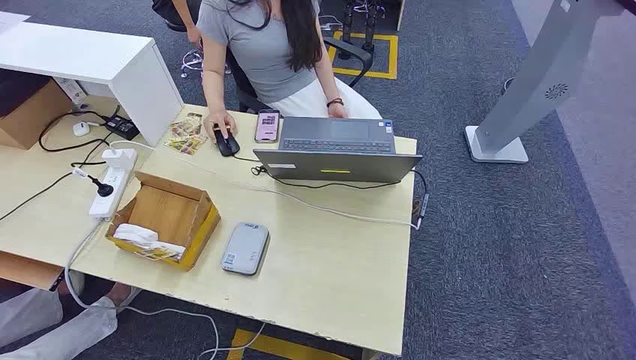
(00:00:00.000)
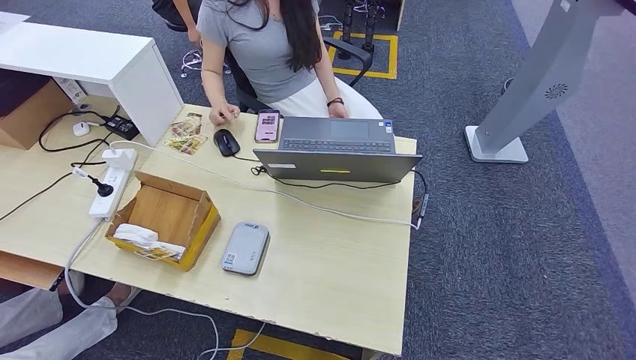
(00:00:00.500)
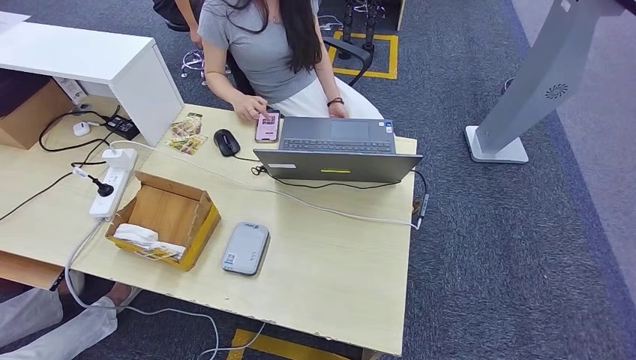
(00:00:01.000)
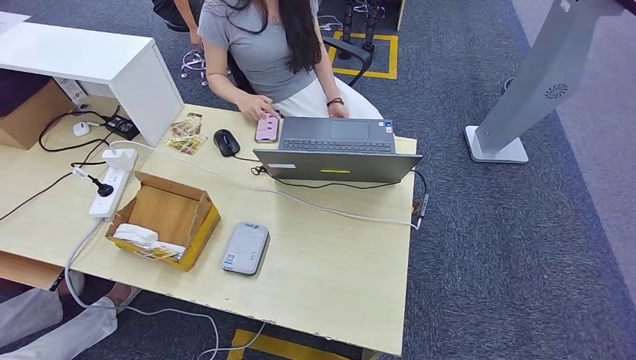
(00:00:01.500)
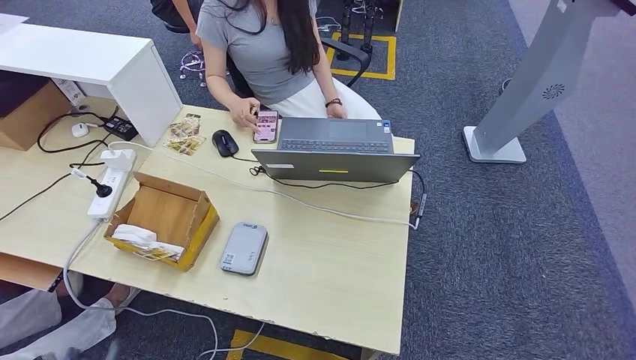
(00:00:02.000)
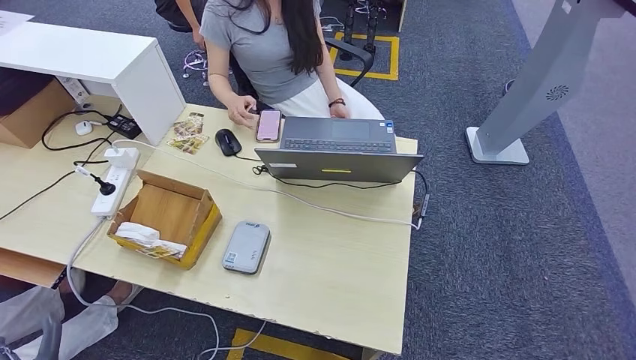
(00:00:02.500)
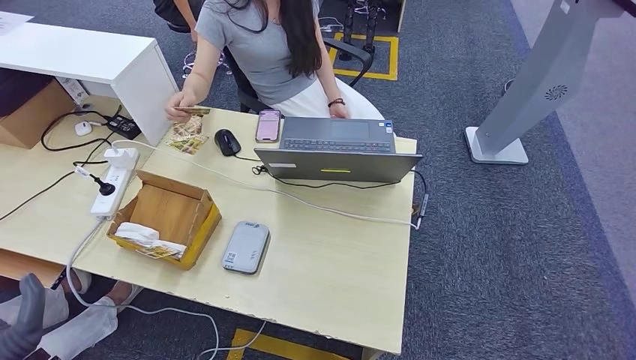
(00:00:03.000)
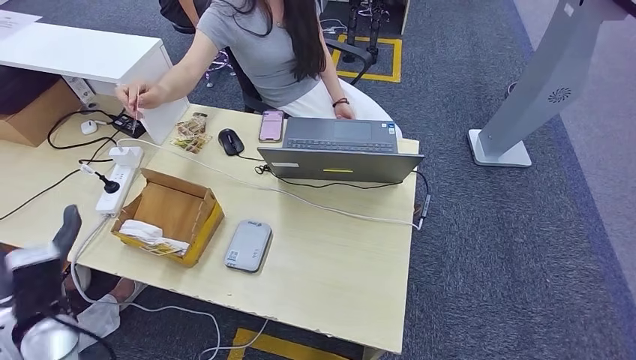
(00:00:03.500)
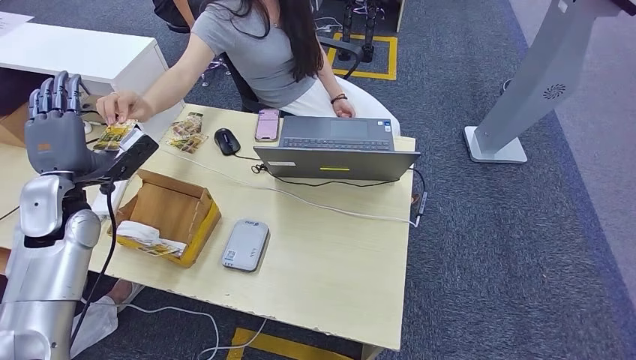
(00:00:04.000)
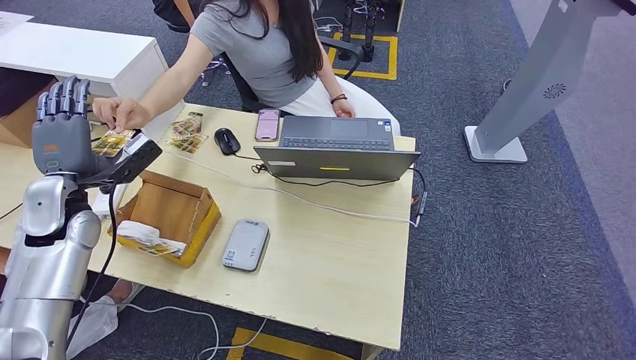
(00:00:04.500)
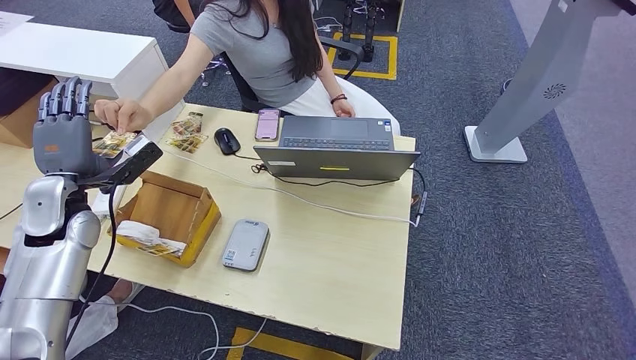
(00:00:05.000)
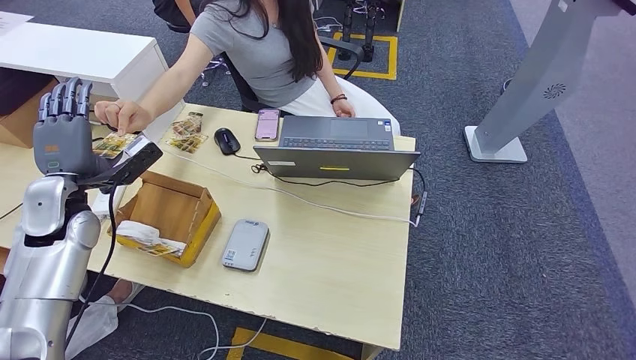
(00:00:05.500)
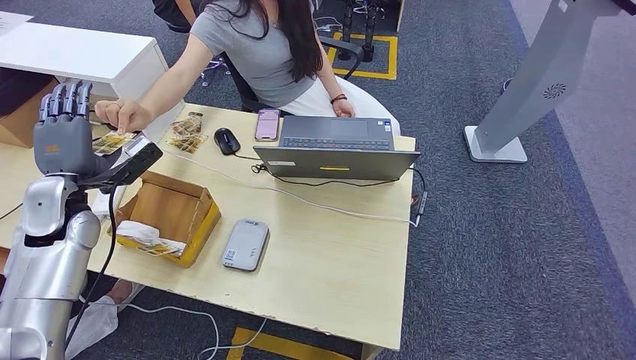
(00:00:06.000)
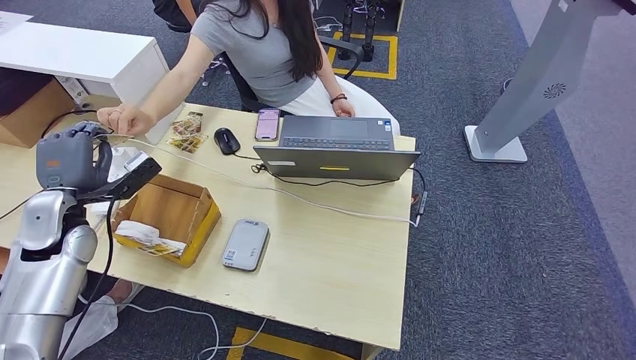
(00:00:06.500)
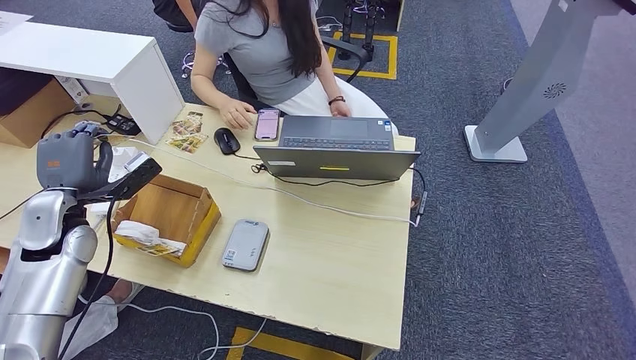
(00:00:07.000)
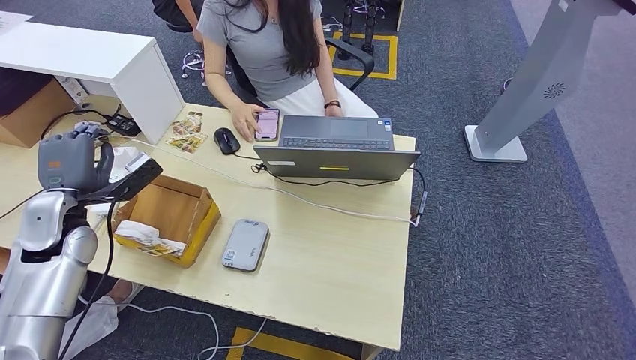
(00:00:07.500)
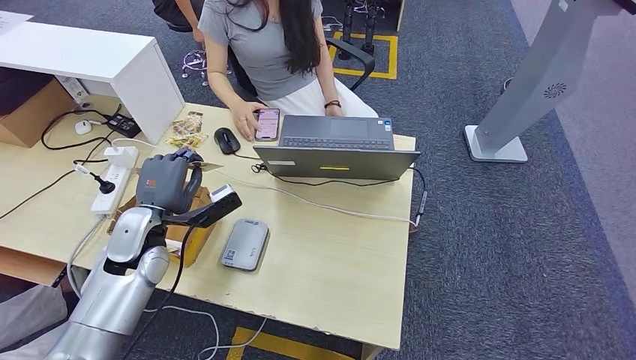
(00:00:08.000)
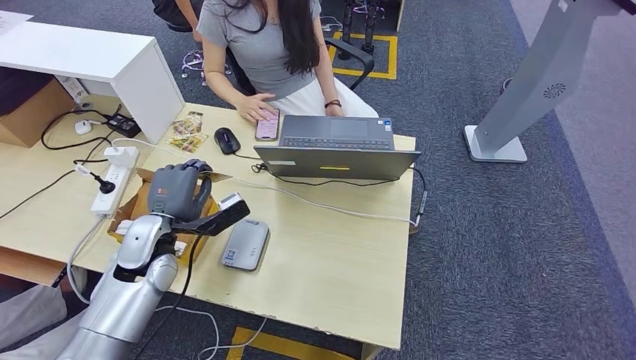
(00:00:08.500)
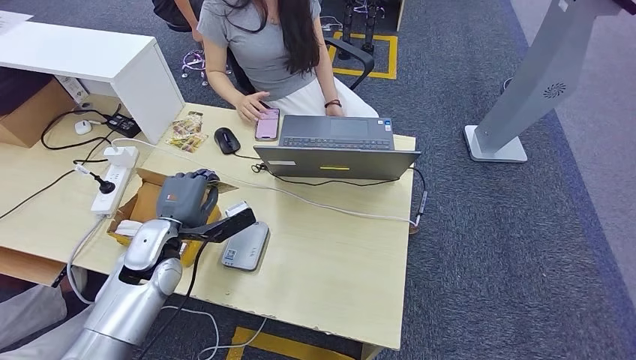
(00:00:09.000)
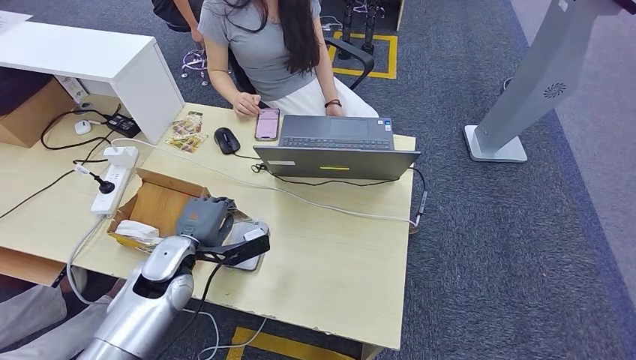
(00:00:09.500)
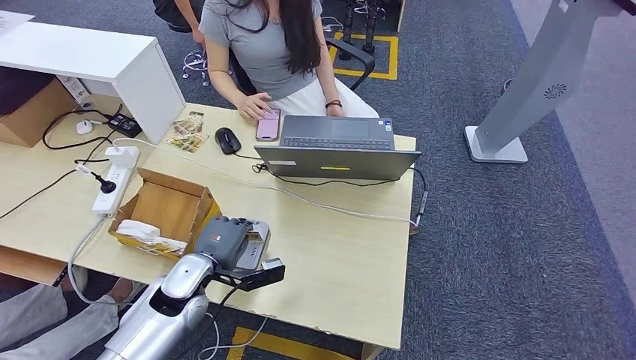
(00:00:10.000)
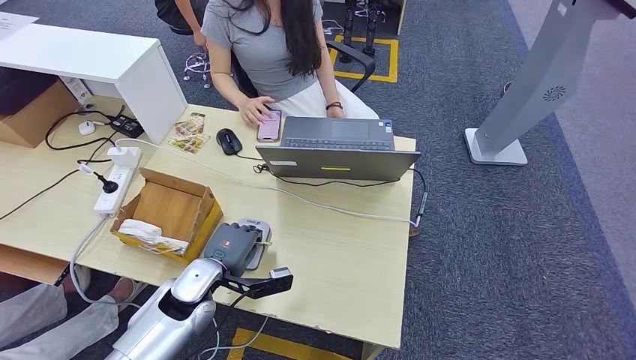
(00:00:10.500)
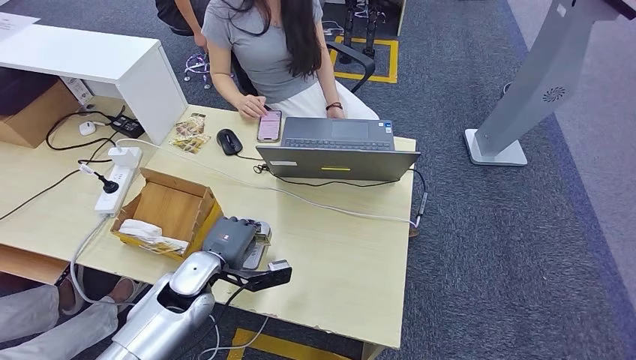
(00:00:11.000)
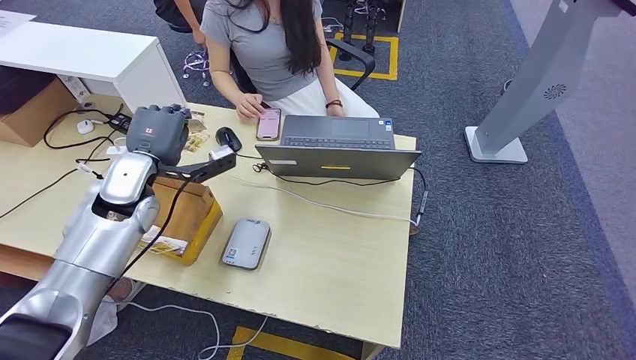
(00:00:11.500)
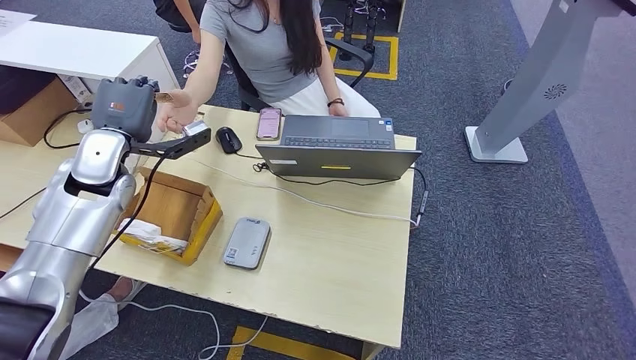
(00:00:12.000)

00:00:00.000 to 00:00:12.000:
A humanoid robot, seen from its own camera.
Step, 00:00:00.000 to 00:00:07.000: Take the ID card from the person's hand.
Step, 00:00:07.500 to 00:00:11.000: Place the ID card on the card reader.
00:00:02.000 to 00:00:04.000: The left hand is displaced forward and upward by roughly 50 cm.
00:00:04.000 to 00:00:06.000: The two hands keep their place.
00:00:08.000 to 00:00:10.000: The left hand travels downward and to the right by roughly 10 cm.
00:00:10.000 to 00:00:12.000: The left hand goes roughly 25 cm upward, forward and to the left.

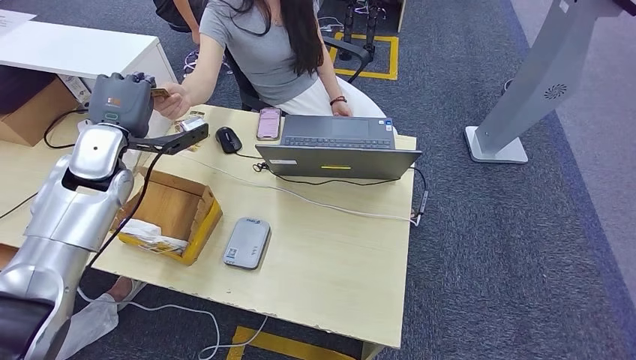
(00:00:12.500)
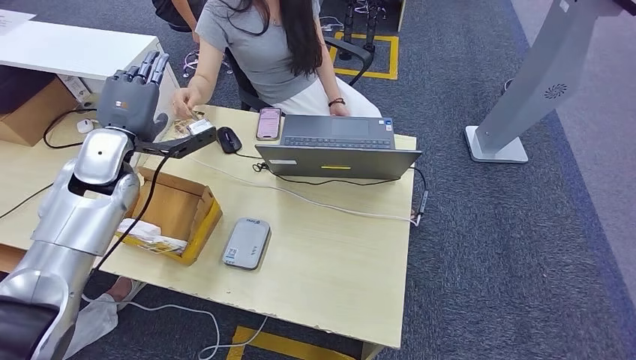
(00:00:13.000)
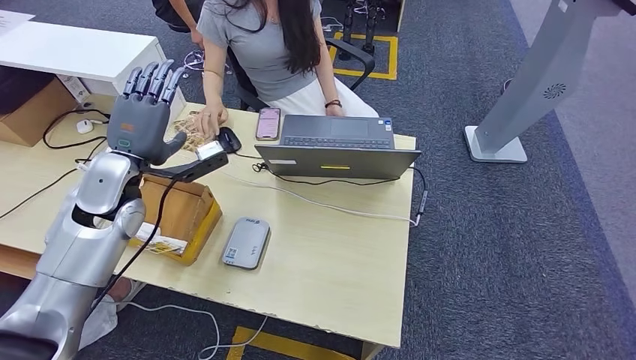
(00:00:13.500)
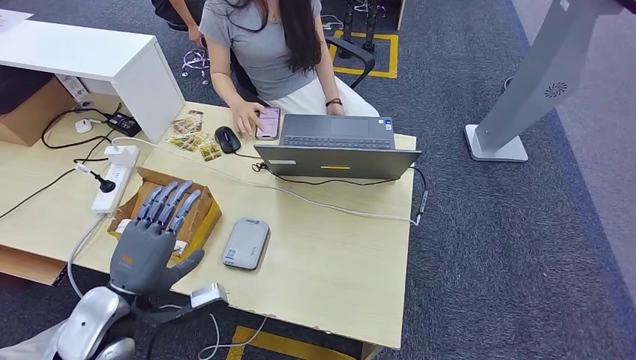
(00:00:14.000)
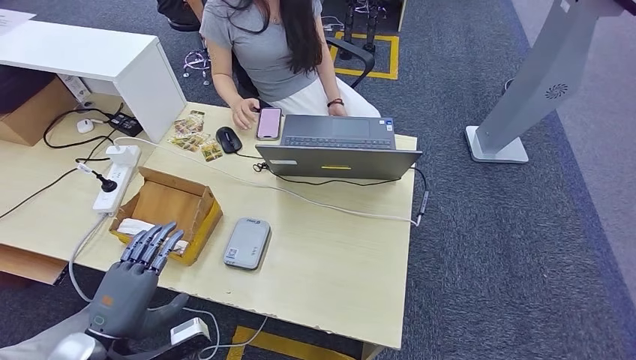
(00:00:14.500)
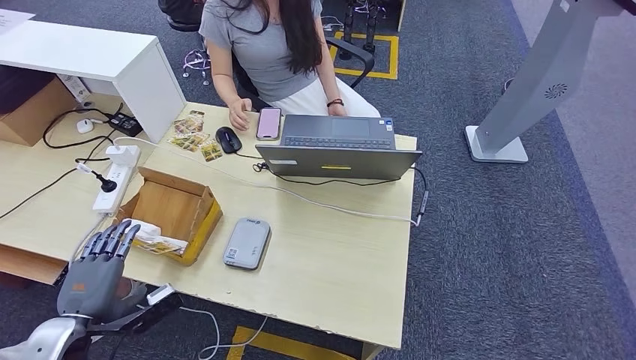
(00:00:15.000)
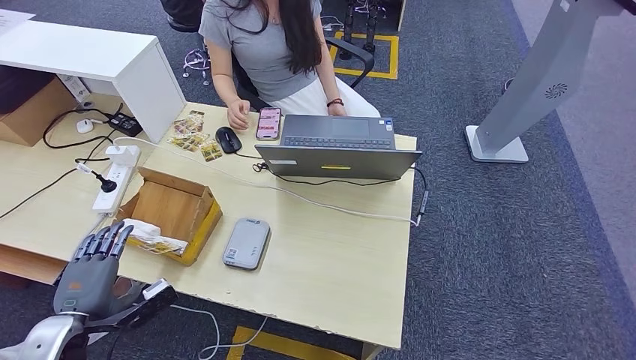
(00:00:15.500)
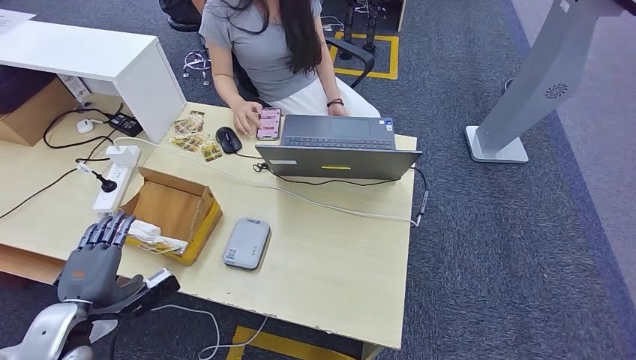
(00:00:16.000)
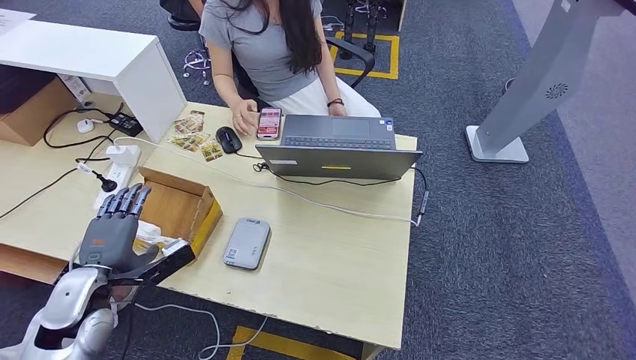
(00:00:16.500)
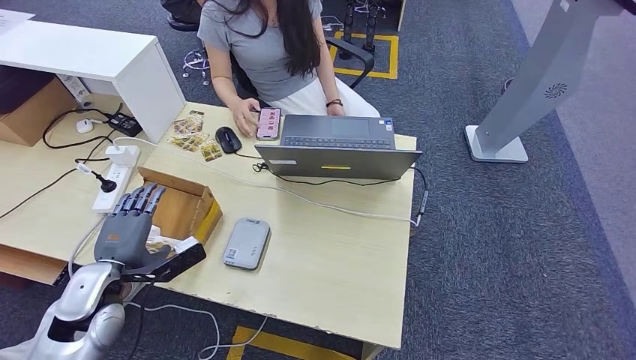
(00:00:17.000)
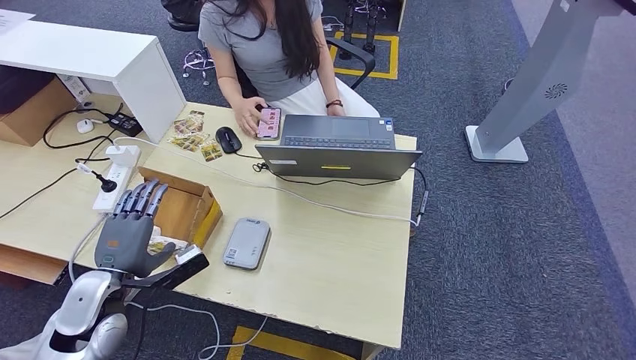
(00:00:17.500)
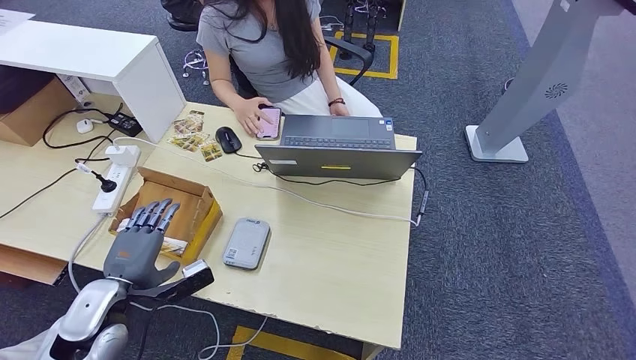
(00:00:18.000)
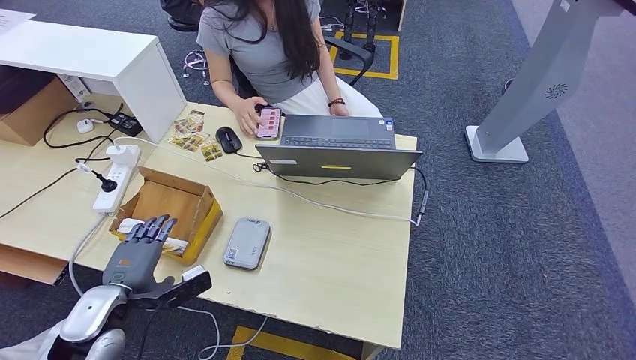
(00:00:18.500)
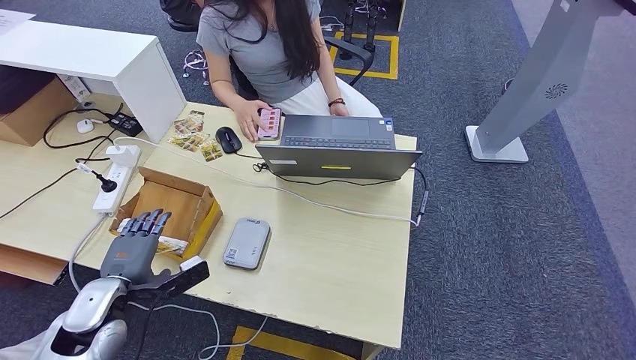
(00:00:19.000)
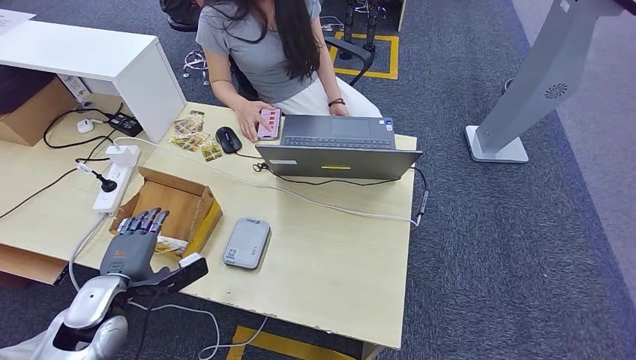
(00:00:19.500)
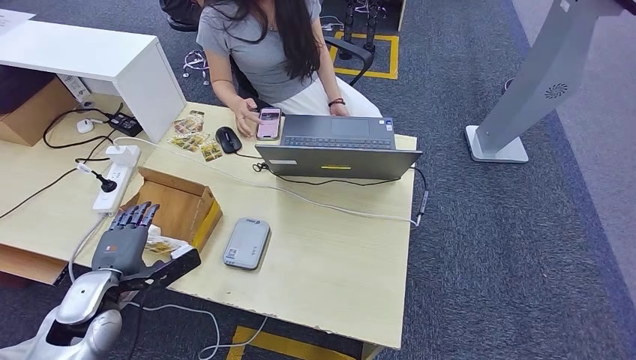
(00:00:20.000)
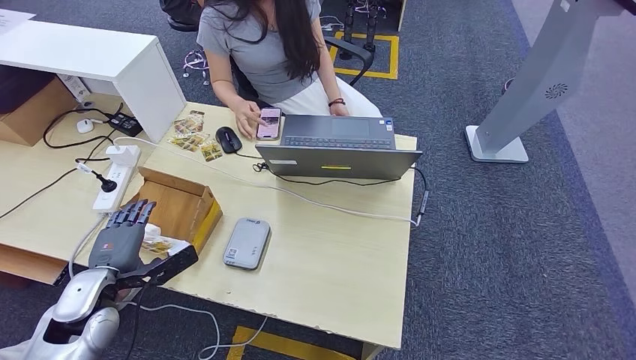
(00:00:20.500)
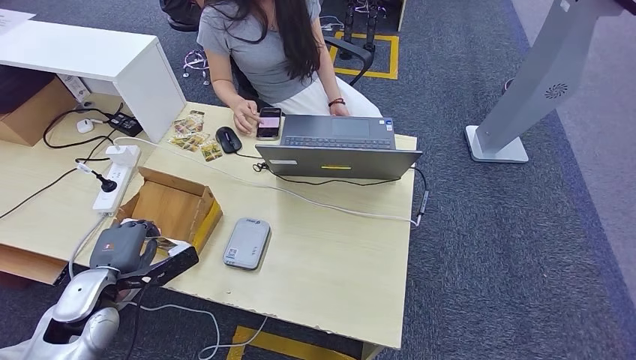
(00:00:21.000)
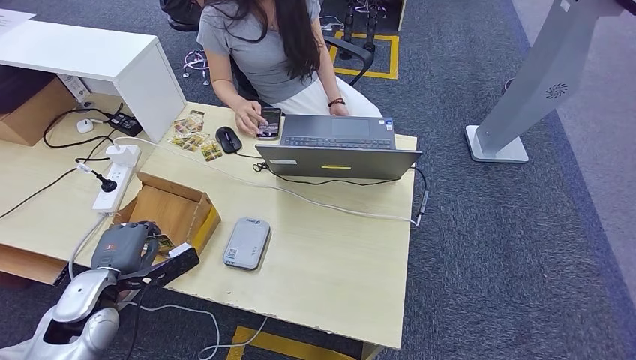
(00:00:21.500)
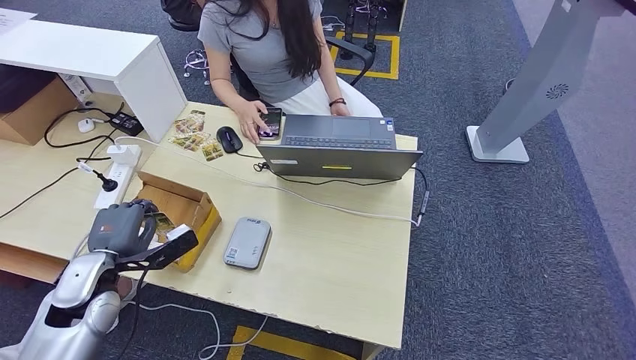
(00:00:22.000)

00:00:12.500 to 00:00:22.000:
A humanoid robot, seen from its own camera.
Step, 00:00:12.500 to 00:00:14.000: Hand the ID card to the person.
00:00:12.500 to 00:00:14.500: The left hand moves backward and downward, some 30 cm.
00:00:14.500 to 00:00:16.500: The left hand goes some 10 cm forward and to the left.
00:00:16.500 to 00:00:22.000: The hands stay close to where they were, moving slightly.
